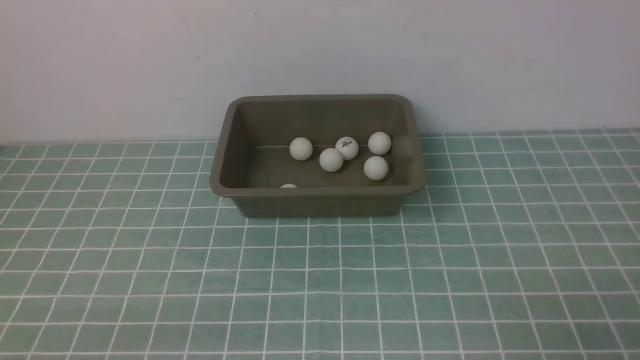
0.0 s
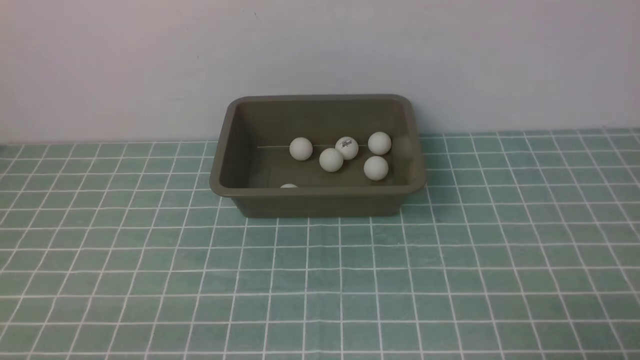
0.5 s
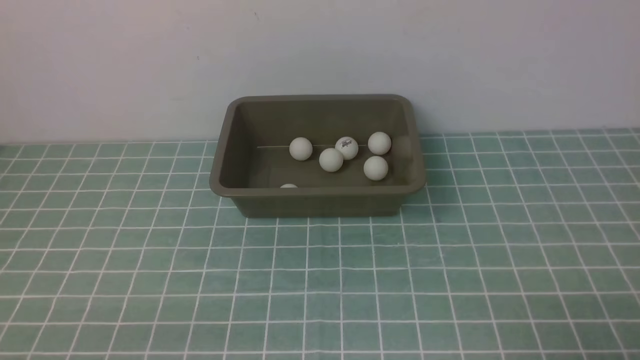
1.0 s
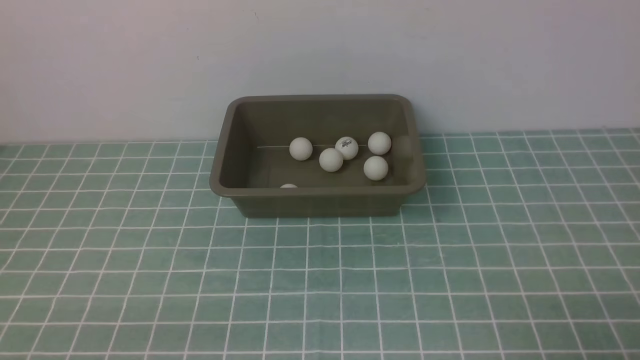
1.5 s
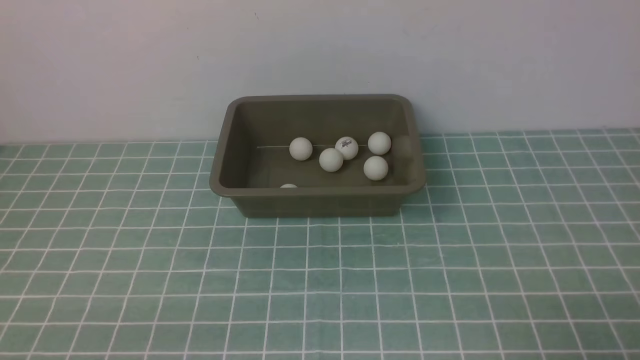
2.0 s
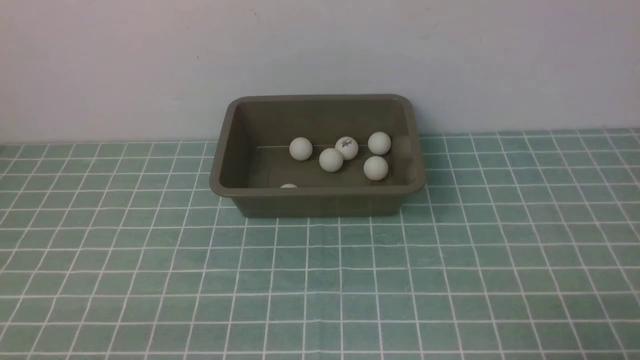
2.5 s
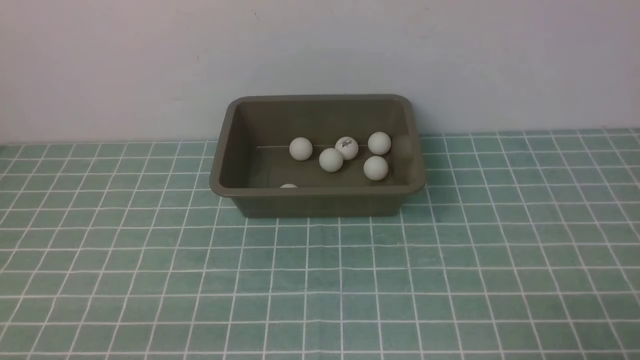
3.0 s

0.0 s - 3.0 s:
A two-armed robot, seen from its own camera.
1.5 s - 3.0 s: Both grippers stay about where they are.

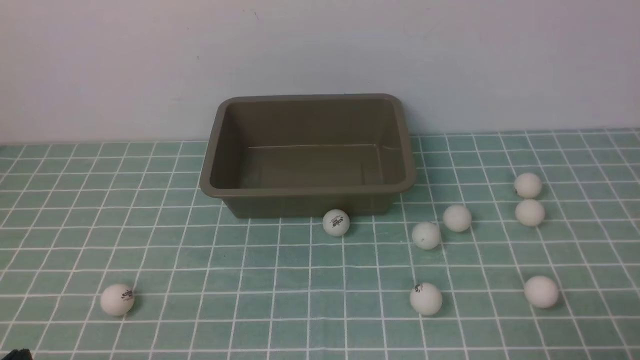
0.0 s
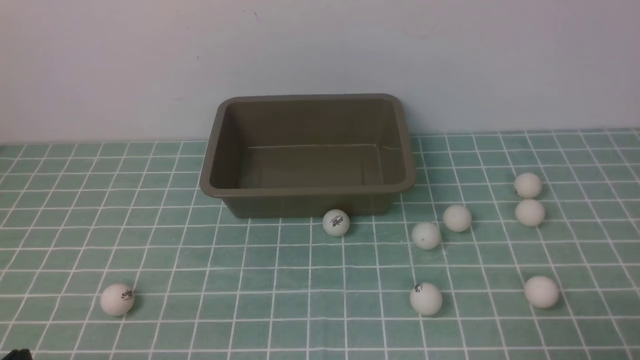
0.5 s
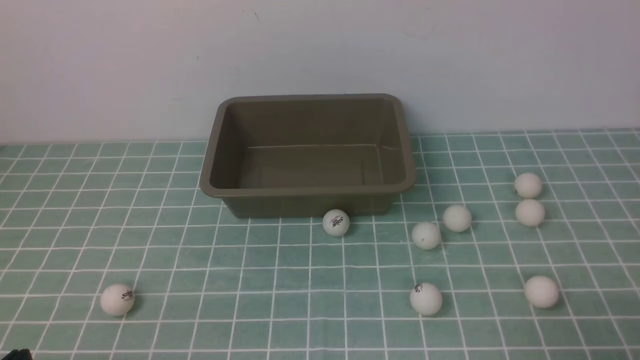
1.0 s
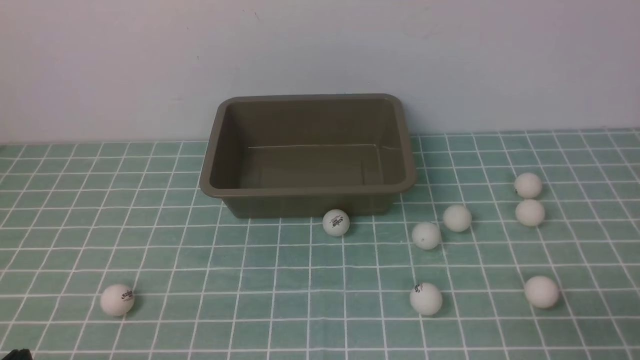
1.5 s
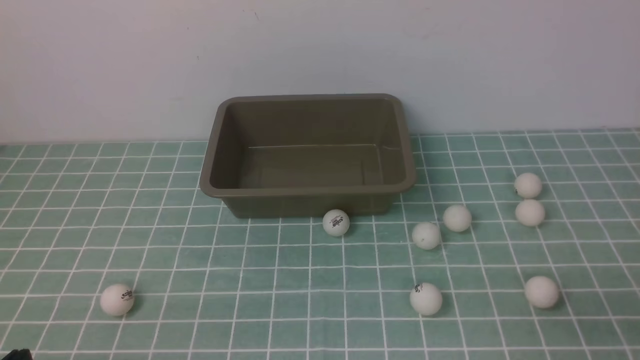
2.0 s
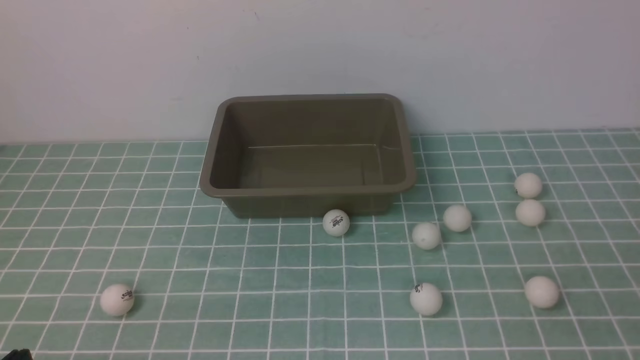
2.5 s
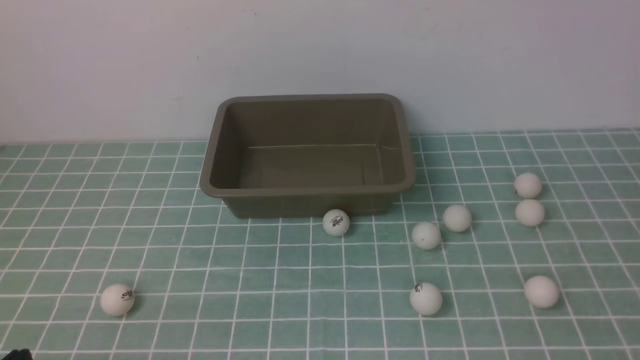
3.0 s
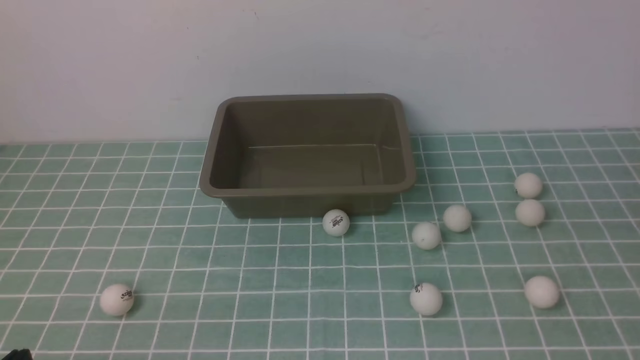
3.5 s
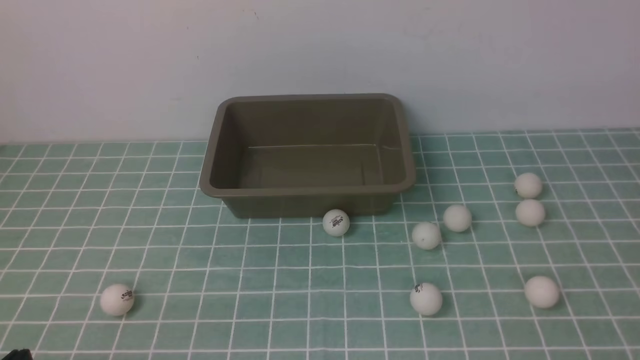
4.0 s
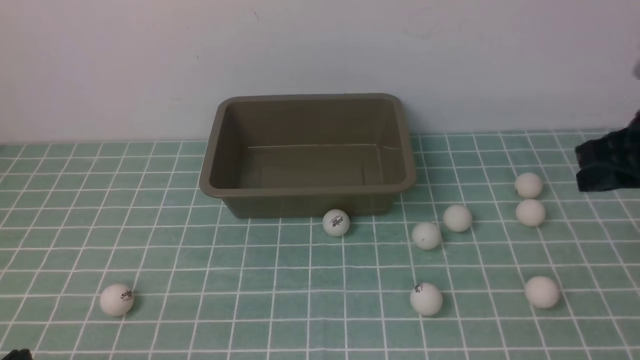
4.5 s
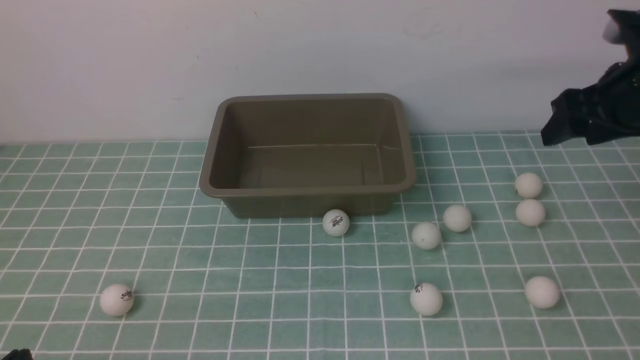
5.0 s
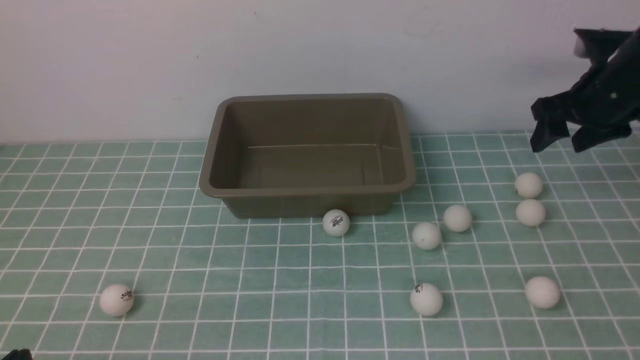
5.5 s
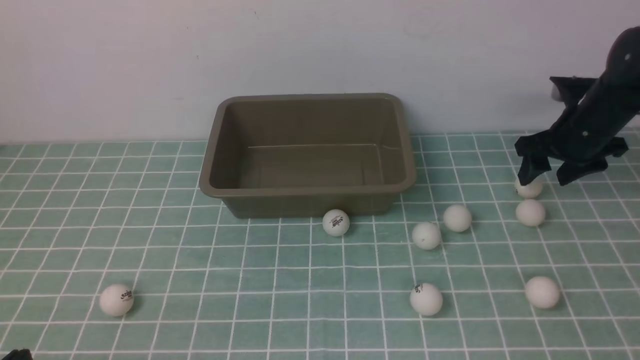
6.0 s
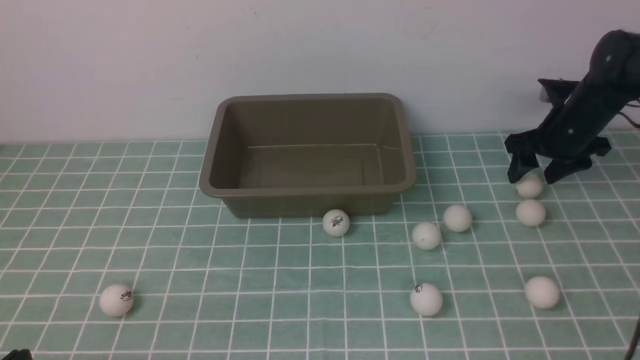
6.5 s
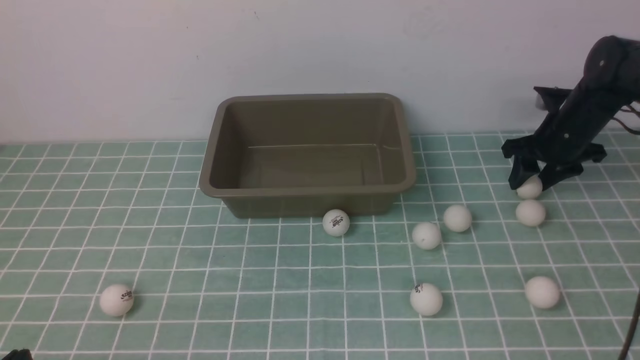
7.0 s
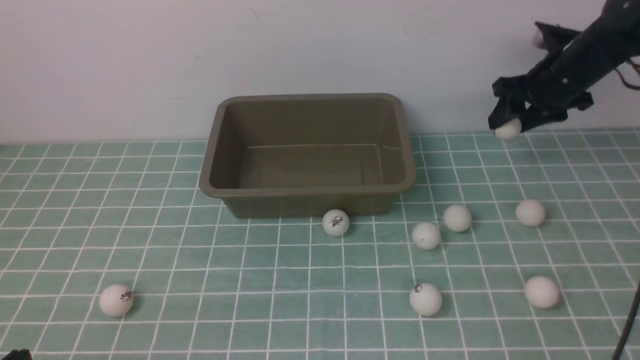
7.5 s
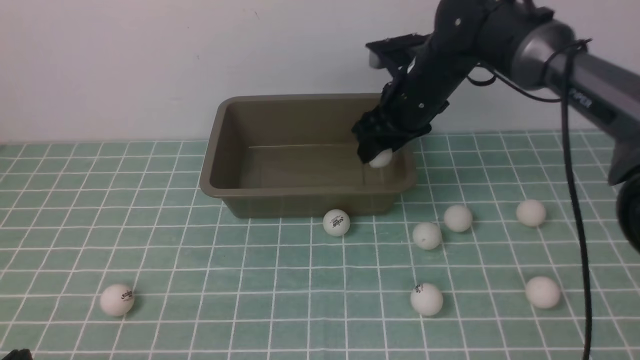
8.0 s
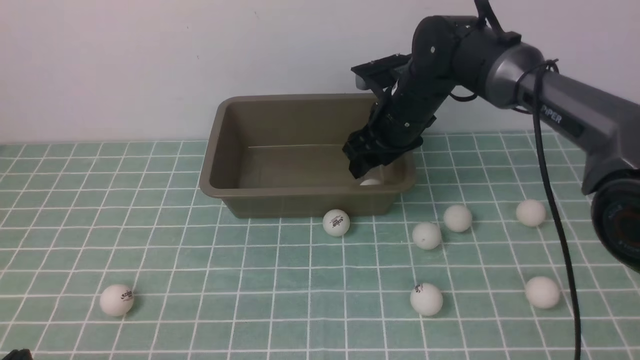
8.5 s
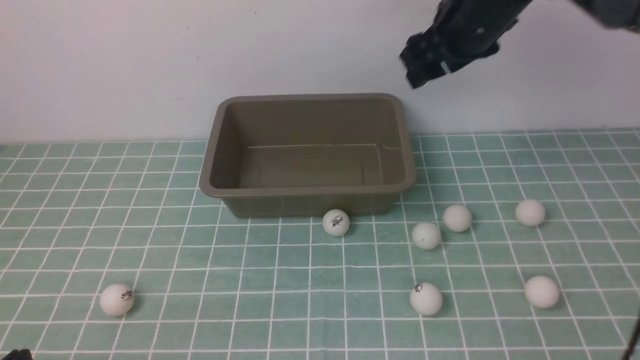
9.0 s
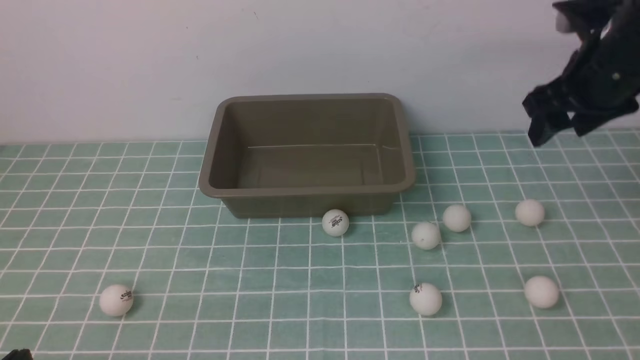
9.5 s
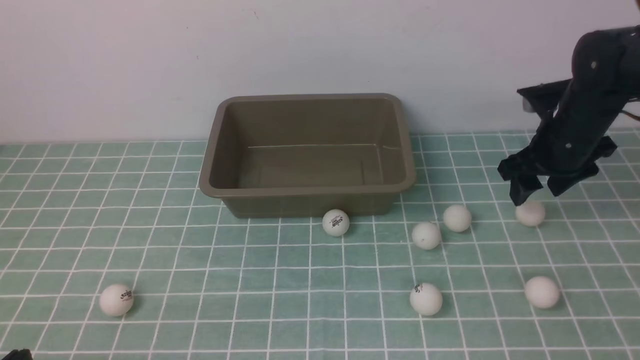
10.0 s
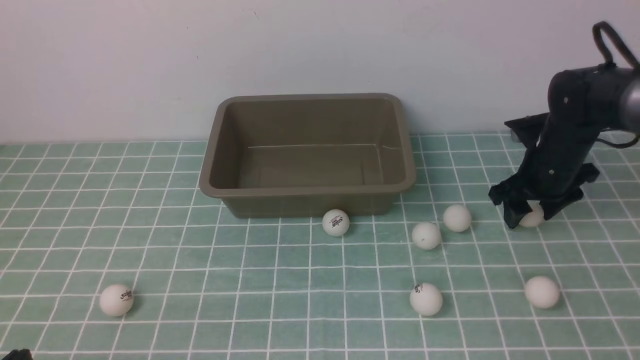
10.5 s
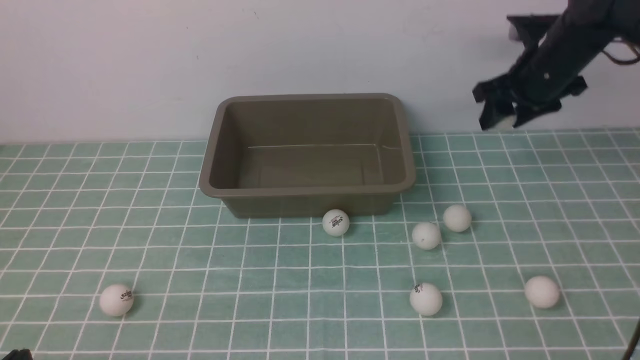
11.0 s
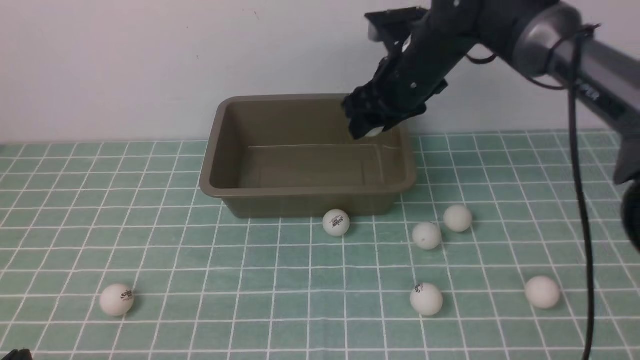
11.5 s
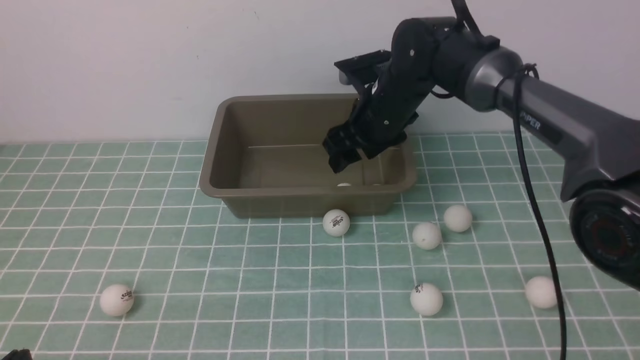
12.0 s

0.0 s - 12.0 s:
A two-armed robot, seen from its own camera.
Step, 0.0 s - 10.5 s: use the right arm to clamp the table tennis ball closest to it.
Step, 11.0 s - 12.0 s: use the right arm to put the table tennis ball into the box.
4.0 s - 6.0 s: The right gripper shifts some 25 cm forward and downward, and opens its fingers.
6.0 s - 8.0 s: The right gripper moves to the left, roughly 20 cm.
8.0 s - 10.0 s: The right gripper heads to the right, covering some 15 cm.
10.0 s - 12.0 s: The right gripper shifts roughly 20 cm to the left.

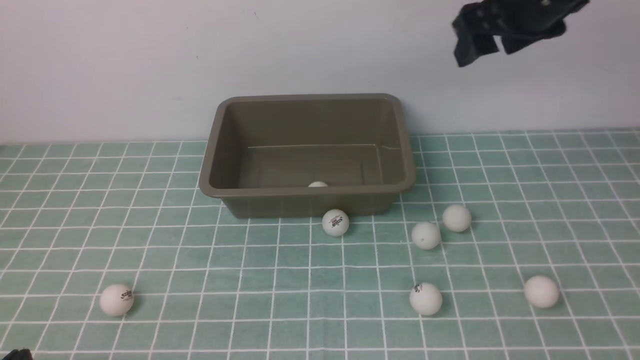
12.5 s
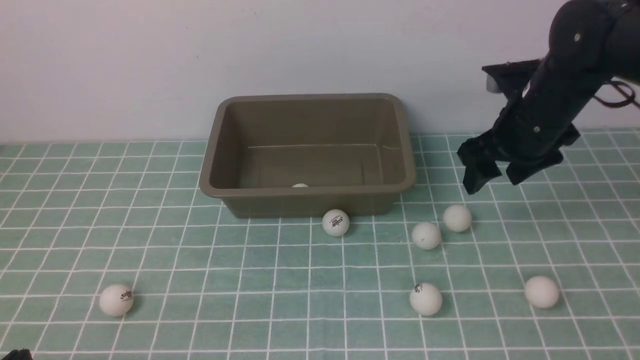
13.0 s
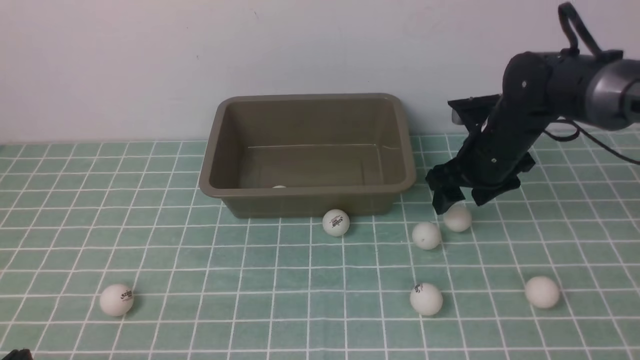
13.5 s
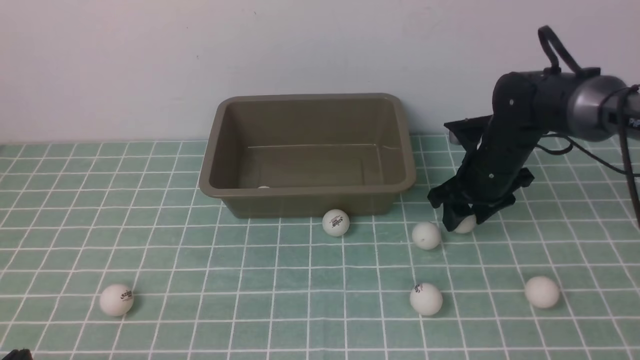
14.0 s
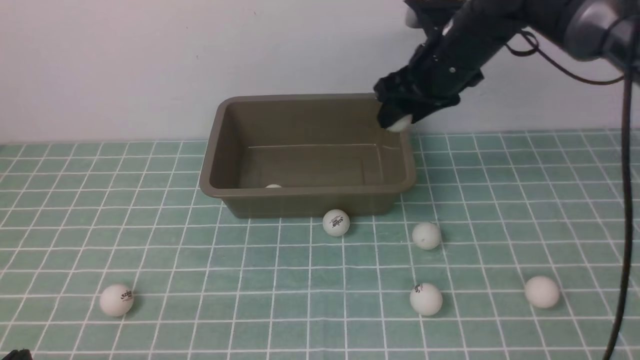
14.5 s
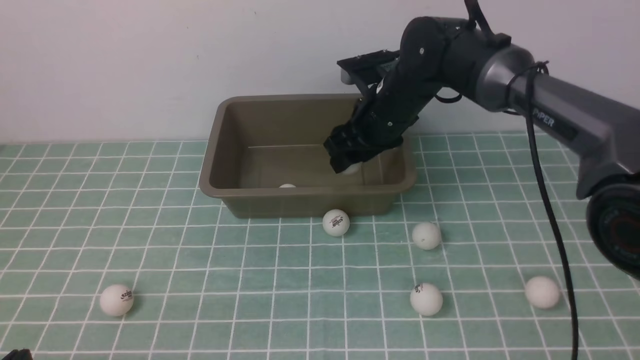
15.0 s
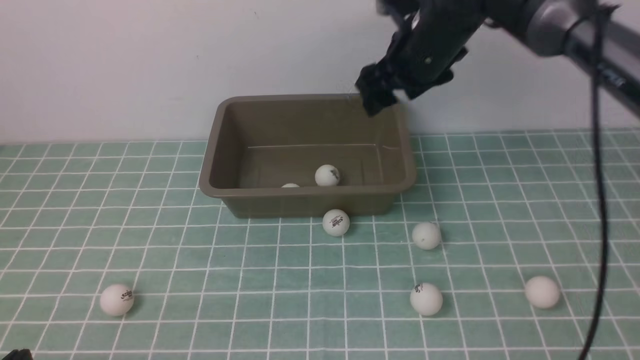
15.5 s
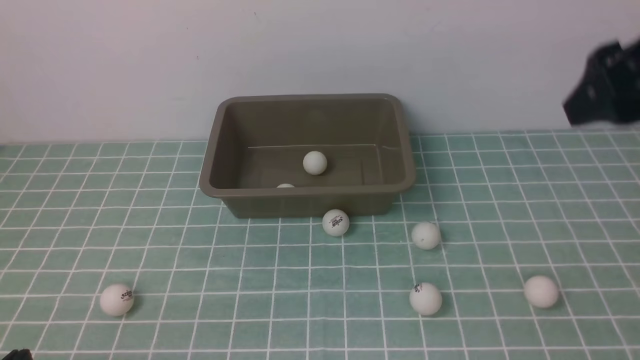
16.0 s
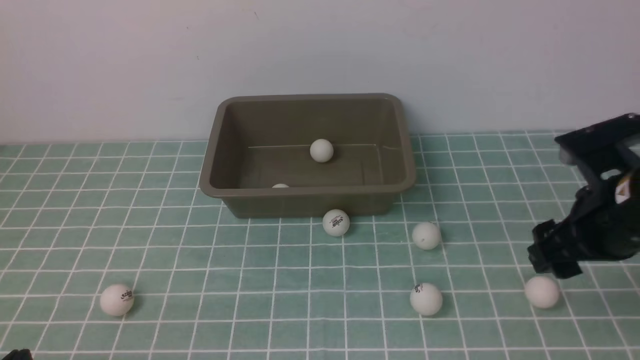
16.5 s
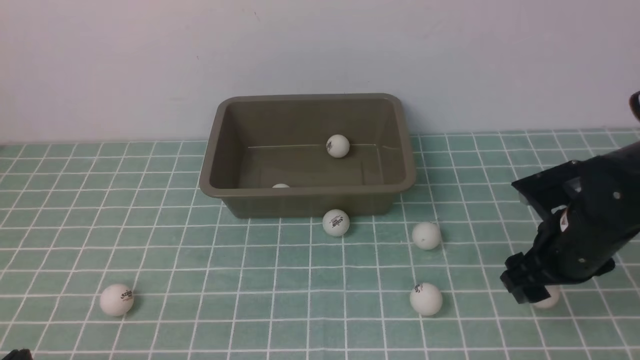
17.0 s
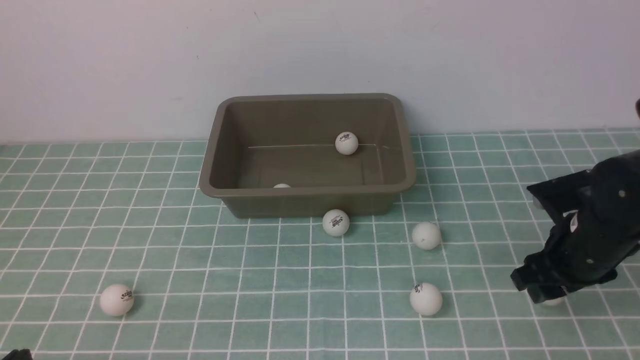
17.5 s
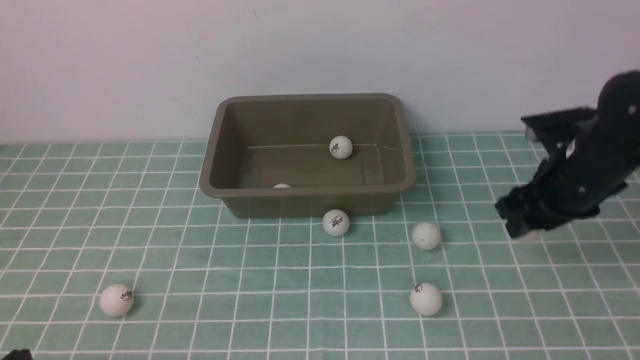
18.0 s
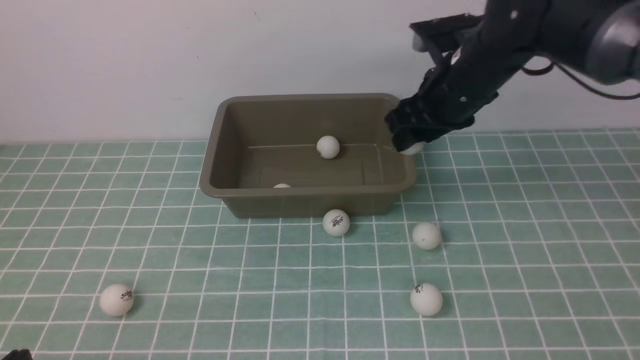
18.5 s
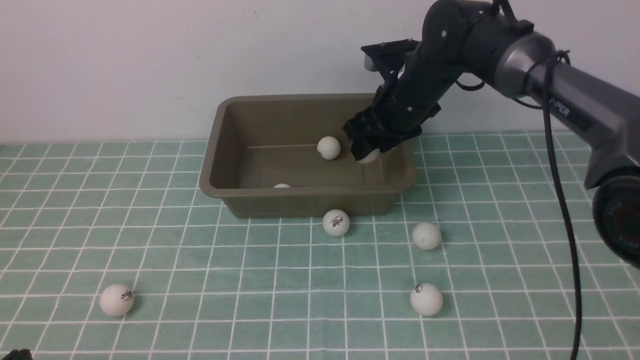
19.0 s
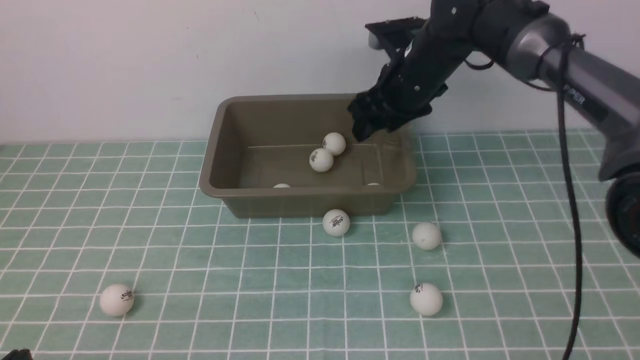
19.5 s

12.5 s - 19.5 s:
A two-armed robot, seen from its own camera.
Step, 12.5 s - 14.0 s: use the right arm to clamp the table tennis ball closest to it.
Step, 14.5 s - 15.0 s: use the right arm to put the table tennis ball into the box.
Step, 15.5 s - 17.5 s: use the right arm to clamp the table tennis ball closest to it.
Step, 18.0 s - 19.0 s: use the right arm to put the table tennis ball into the box.
12.5 s - 14.5 s: The right gripper moves downward and to the left, about 10 cm.
14.5 s - 16.0 s: The right gripper moves backward, upward and to the right, roughly 25 cm.
16.0 s - 17.5 s: The right gripper travels downward by about 25 cm.
17.5 s - 19.5 s: The right gripper goes roughly 25 cm forward, to the left and upward.
